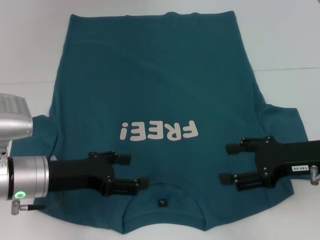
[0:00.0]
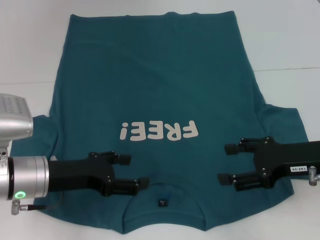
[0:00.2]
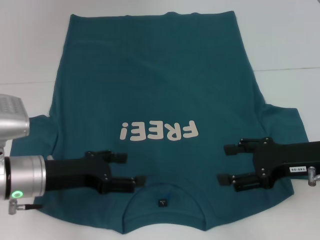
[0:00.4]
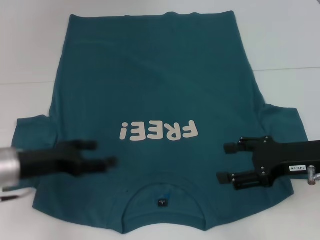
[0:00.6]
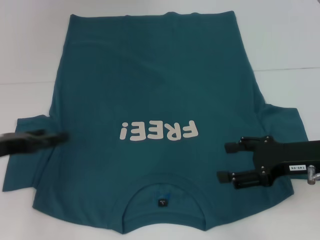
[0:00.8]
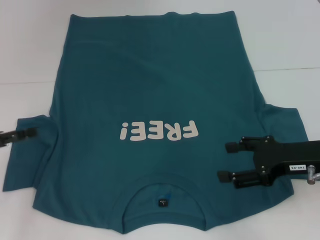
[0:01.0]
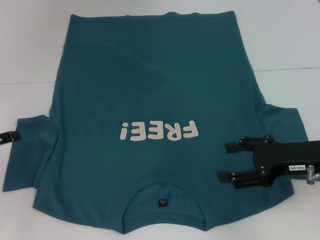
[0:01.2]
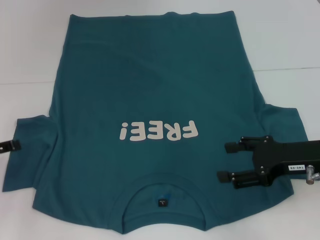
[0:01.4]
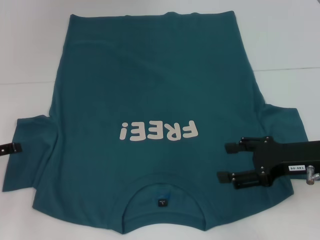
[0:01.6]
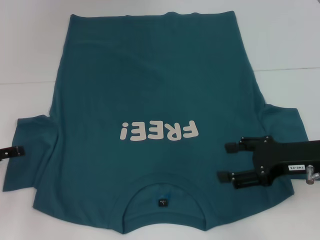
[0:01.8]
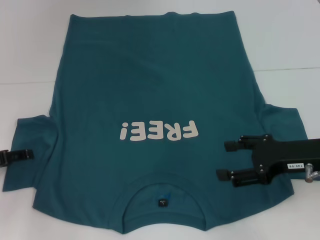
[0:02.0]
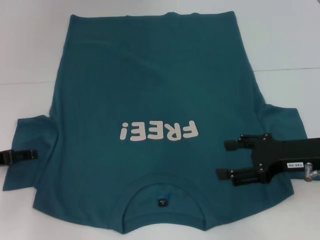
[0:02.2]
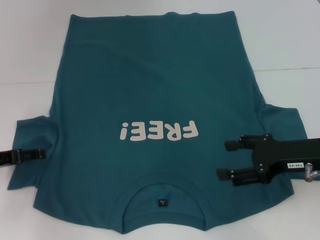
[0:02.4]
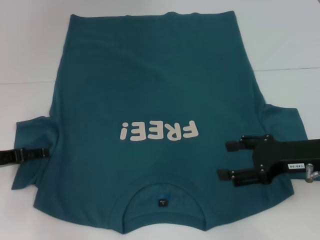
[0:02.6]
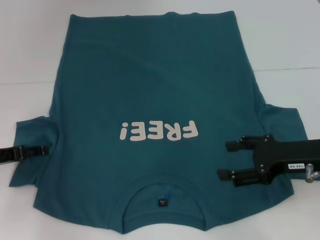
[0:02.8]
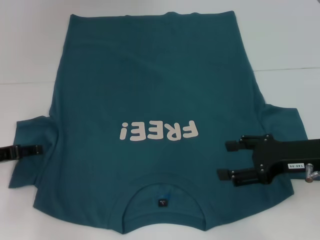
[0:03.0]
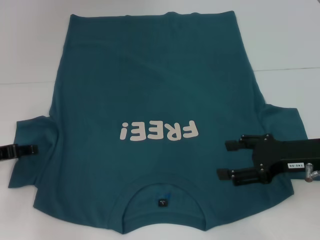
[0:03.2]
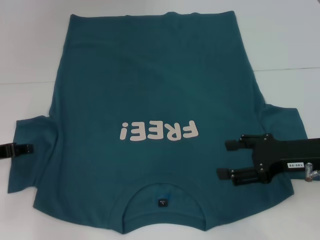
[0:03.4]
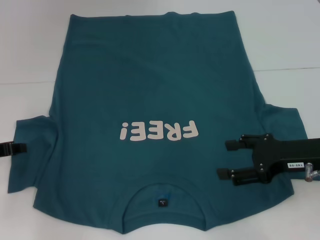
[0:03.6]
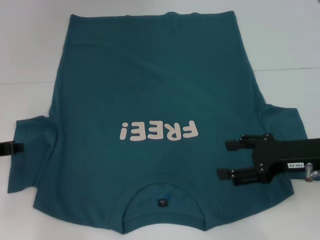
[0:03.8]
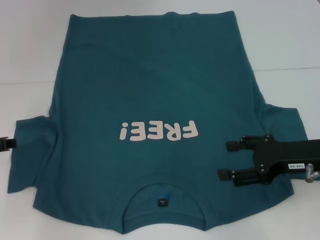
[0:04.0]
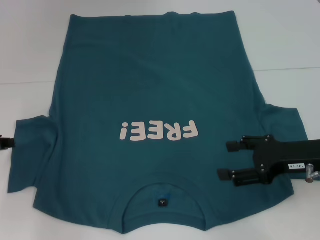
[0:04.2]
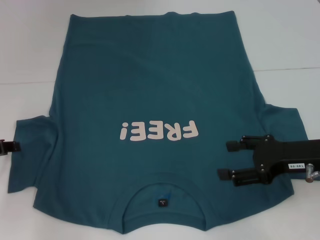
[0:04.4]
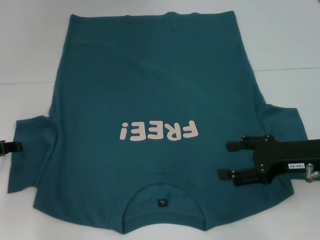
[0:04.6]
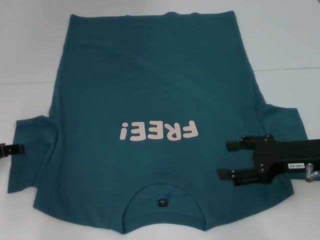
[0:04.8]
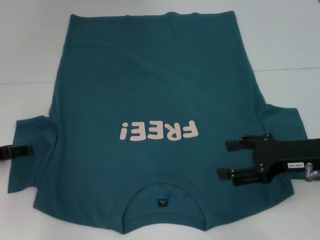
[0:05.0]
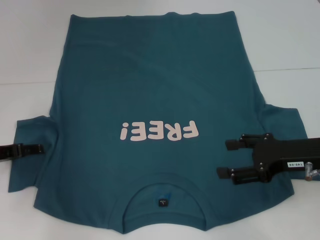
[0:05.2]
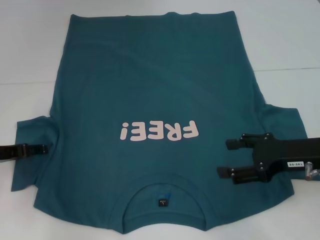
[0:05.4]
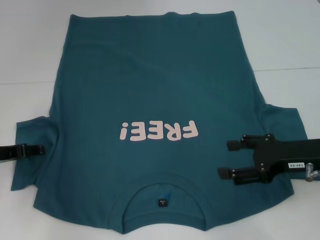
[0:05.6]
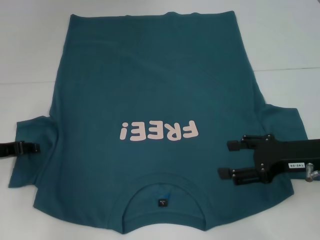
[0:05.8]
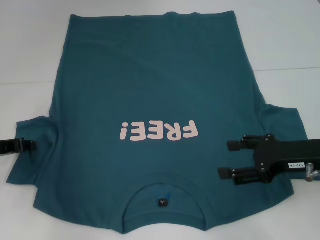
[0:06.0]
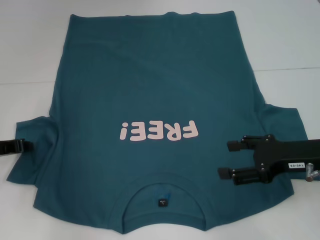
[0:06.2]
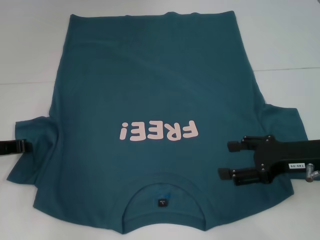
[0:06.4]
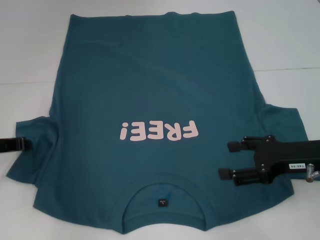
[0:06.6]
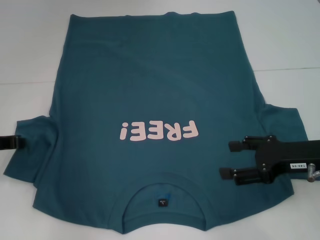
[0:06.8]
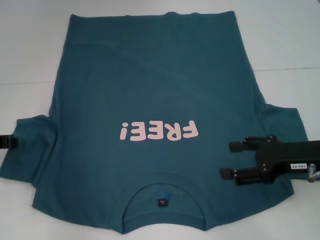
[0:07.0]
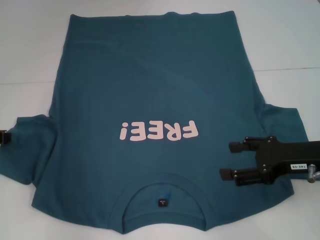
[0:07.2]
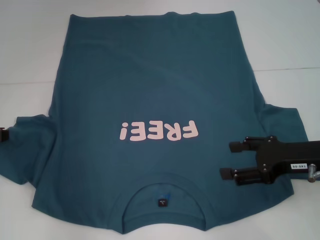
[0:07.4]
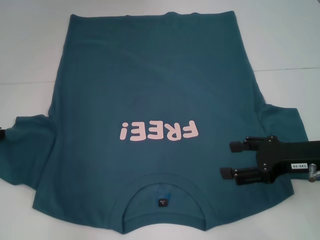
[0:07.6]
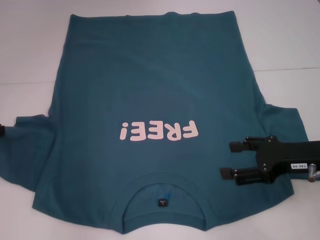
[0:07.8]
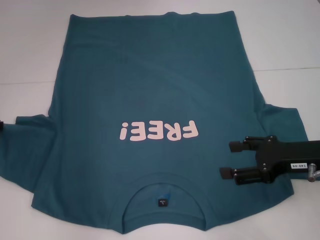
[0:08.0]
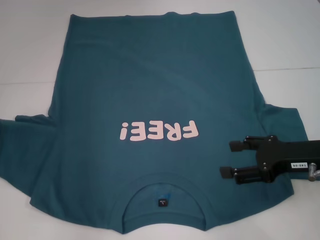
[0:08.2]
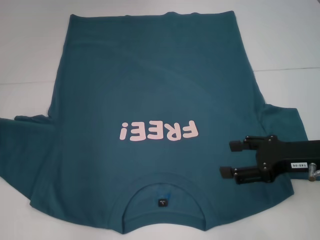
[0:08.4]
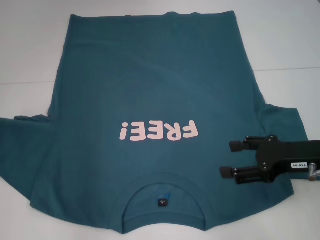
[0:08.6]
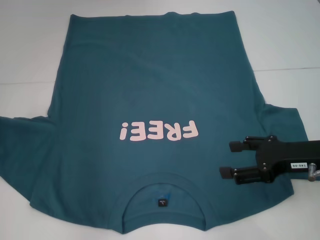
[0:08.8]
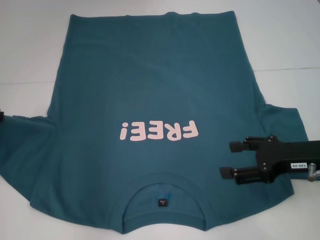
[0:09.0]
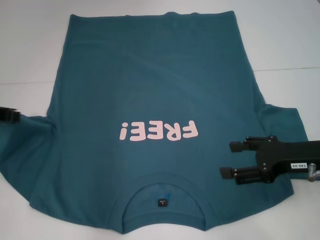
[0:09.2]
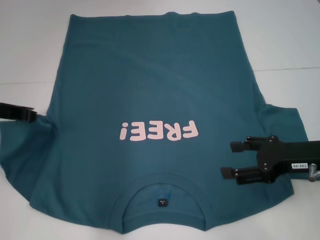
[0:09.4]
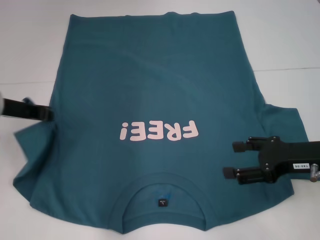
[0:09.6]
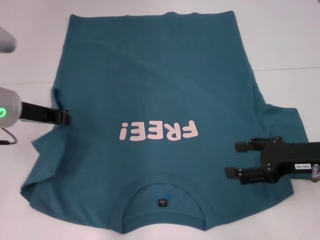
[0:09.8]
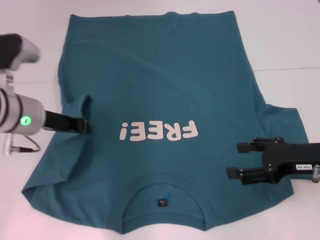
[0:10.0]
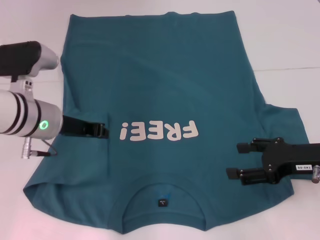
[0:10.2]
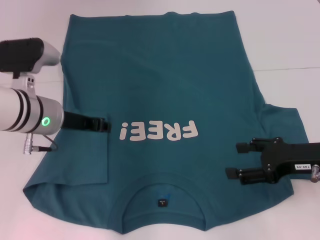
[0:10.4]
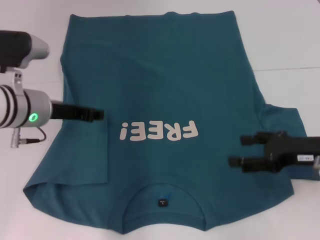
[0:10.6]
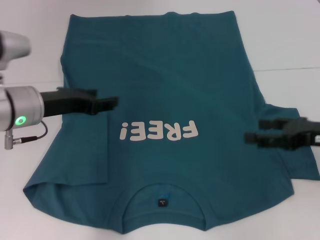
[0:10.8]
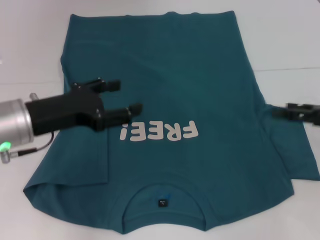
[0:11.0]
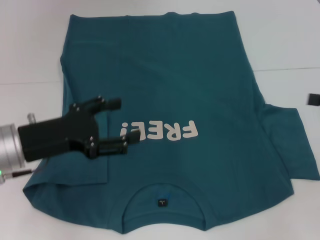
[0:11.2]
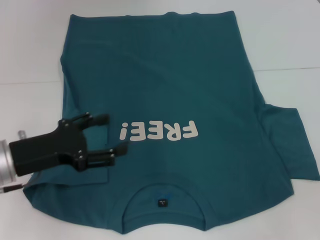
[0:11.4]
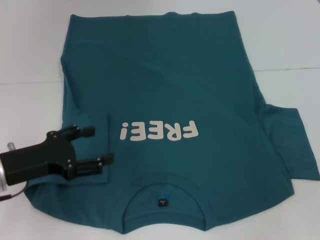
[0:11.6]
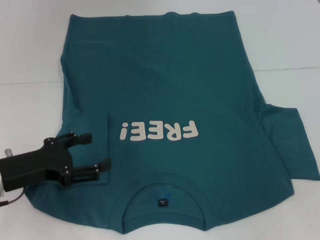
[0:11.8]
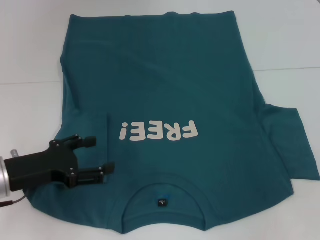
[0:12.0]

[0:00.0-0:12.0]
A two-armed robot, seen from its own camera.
Step, 0:00.0 to 0:10.2: Fold the bottom left sleeve with your left hand.
0:00.0 to 0:01.6: The left gripper shifts approximately 15 cm to the left.
0:01.6 to 0:03.0: The grippers make only small movements.
0:03.0 to 0:04.4: The left gripper closes its fingers.
0:04.4 to 0:06.0: The left gripper opens up.
0:06.0 to 0:07.6: The left gripper closes its fingers.
0:07.6 to 0:09.0: The grippers move only a little.
0:09.0 to 0:10.4: The left gripper heads to the right, covering approximately 15 cm.
0:10.4 to 0:12.0: The left gripper heads backward and to the left, covering approximately 10 cm, and opens up, while the right gripper travels to the right by approximately 15 cm.

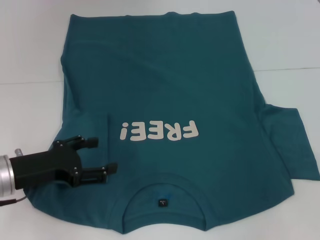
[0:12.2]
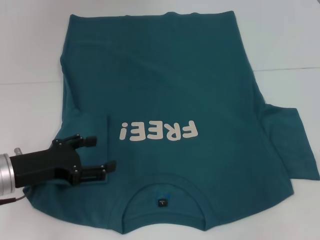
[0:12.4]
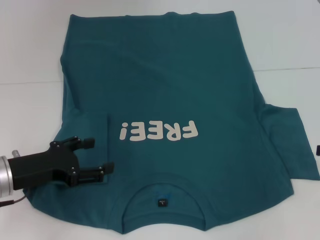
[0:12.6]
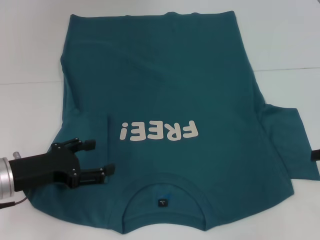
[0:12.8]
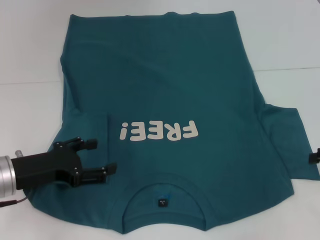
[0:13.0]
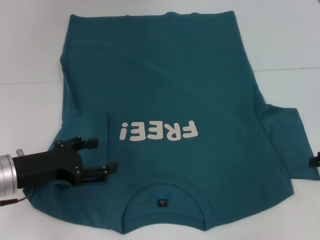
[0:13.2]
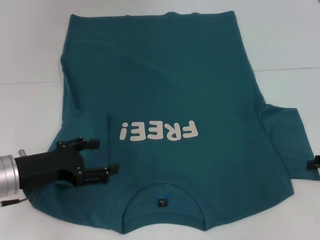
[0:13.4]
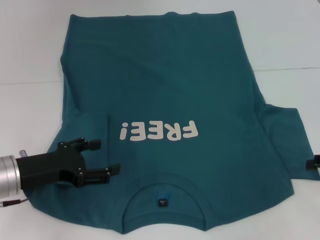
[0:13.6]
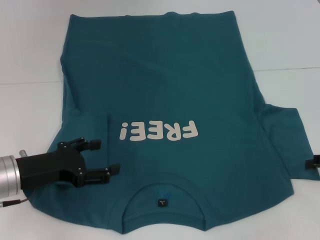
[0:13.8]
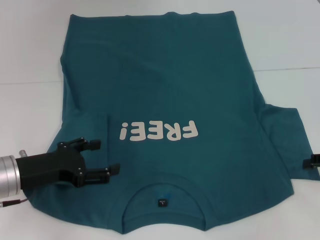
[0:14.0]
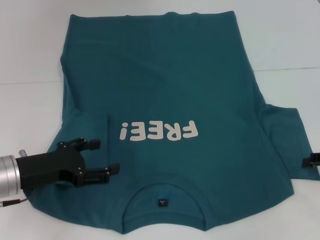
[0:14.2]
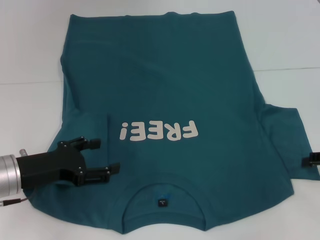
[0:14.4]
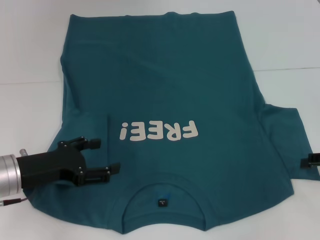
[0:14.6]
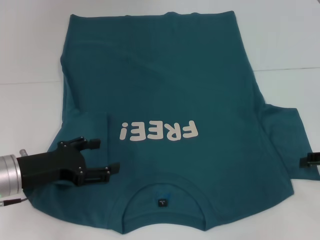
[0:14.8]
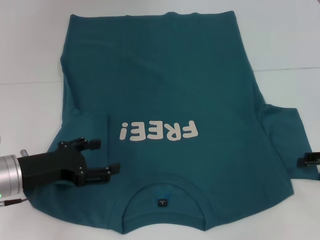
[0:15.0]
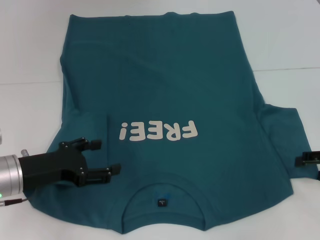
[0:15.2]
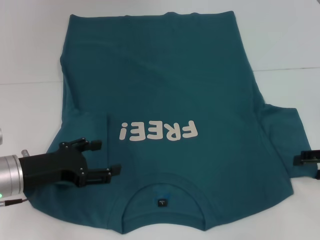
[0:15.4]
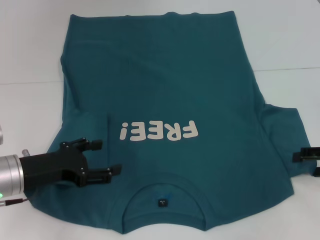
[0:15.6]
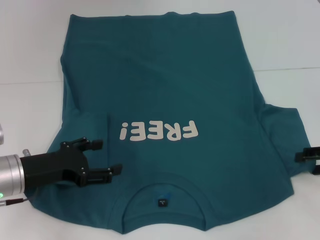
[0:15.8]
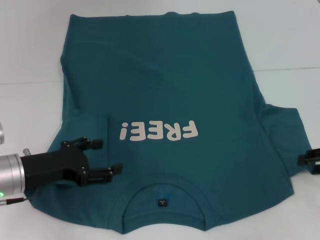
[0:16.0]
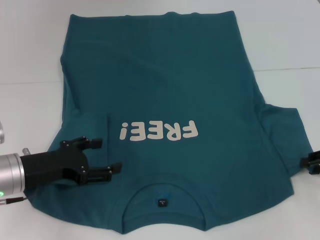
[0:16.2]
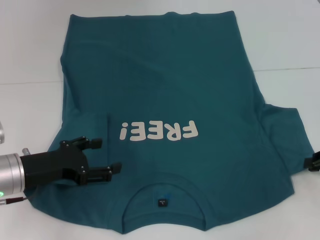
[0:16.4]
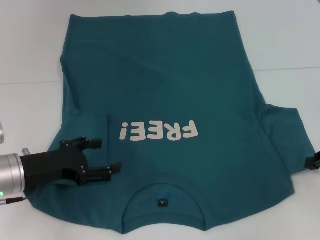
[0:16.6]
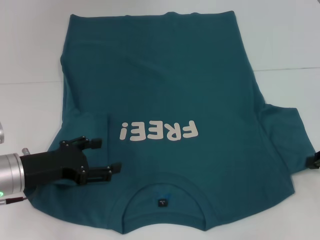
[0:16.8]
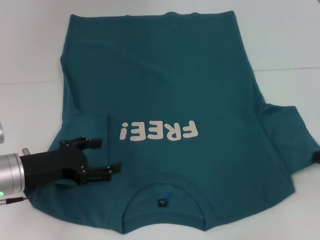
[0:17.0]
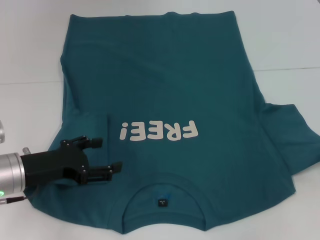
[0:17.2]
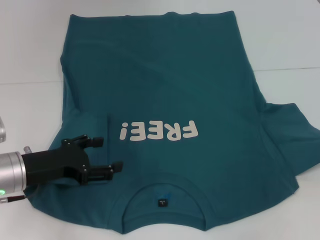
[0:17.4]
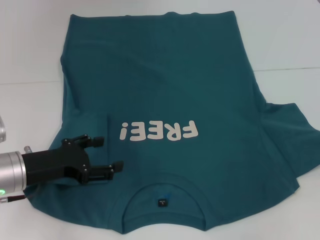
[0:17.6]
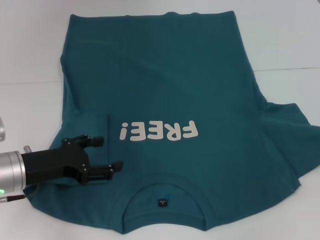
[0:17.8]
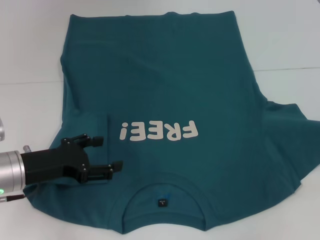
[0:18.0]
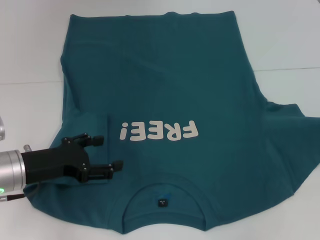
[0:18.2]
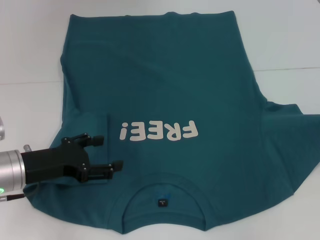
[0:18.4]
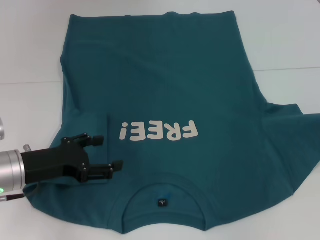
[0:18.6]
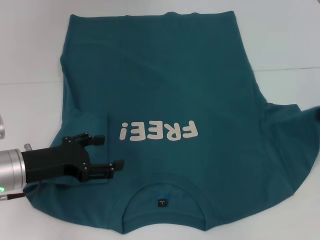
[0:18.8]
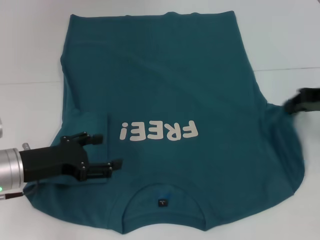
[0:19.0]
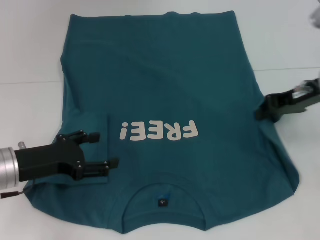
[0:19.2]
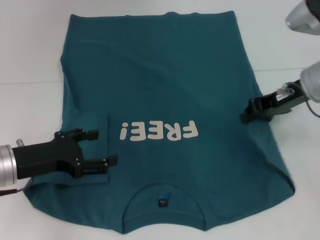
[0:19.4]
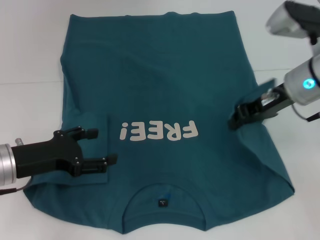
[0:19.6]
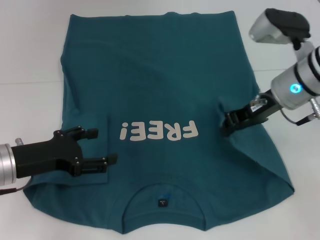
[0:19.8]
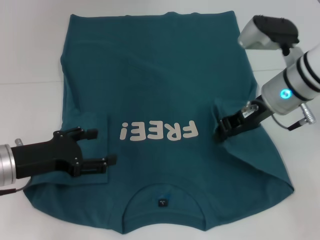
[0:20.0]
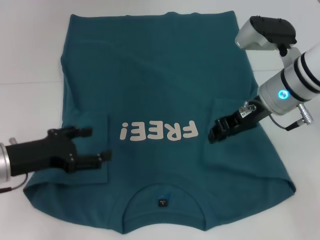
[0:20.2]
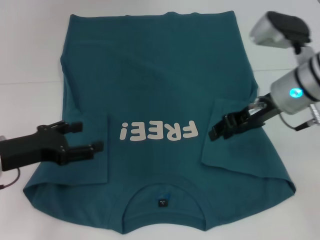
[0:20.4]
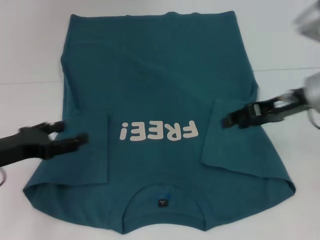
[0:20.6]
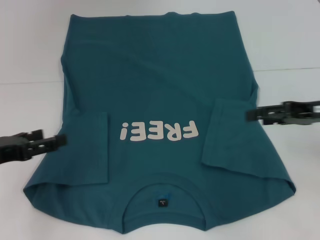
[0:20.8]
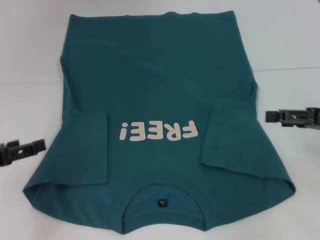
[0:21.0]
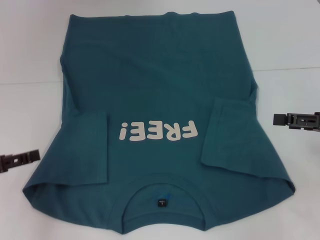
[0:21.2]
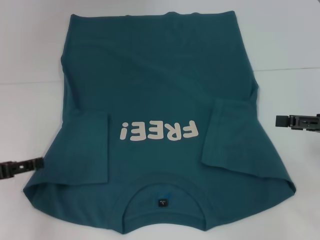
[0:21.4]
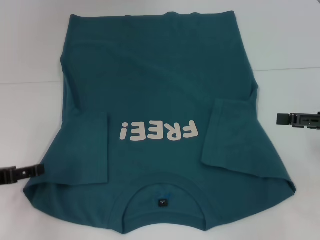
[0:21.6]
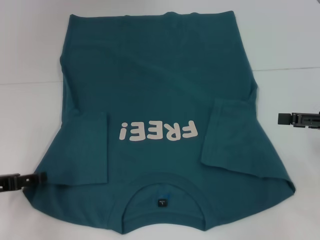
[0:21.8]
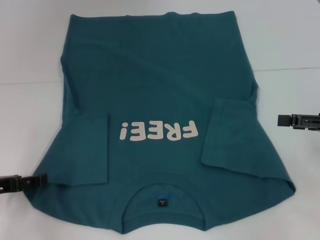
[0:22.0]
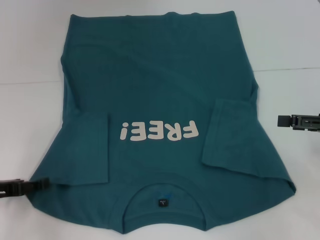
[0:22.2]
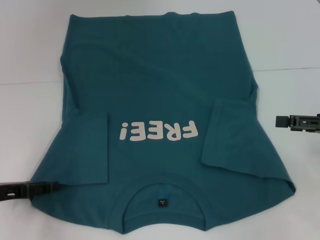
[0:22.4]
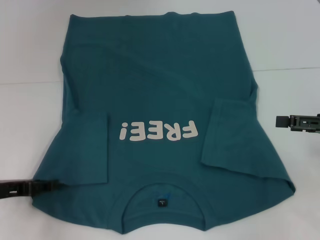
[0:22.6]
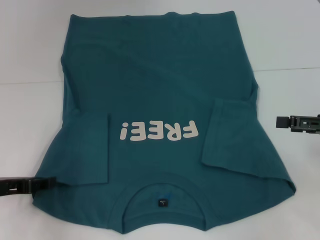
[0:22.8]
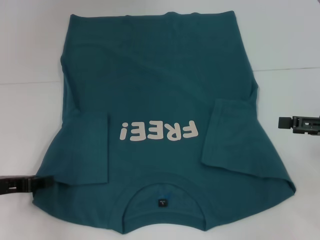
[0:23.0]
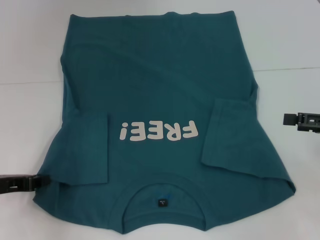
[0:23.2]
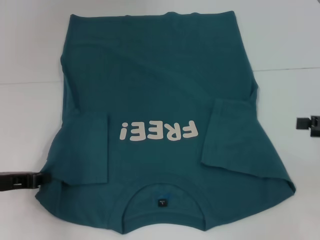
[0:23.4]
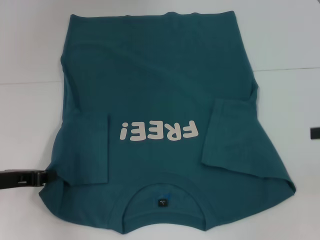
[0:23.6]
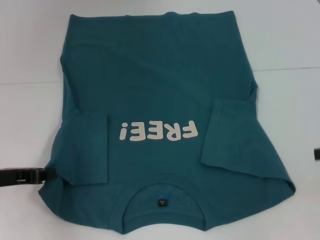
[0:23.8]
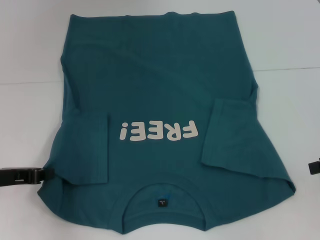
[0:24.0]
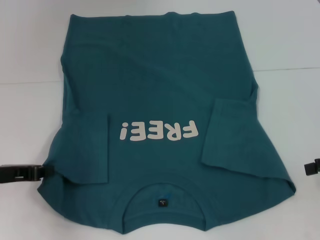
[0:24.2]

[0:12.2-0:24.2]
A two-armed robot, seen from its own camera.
Step, 0:12.2 to 0:20.4: Fold the bottom right sleeve to the right.
Step, 0:20.6 to 0:23.6: Grab the bottom left corner with your left hand.
0:12.2 to 0:15.2: The grippers move only a little.
0:15.2 to 0:16.6: The right gripper closes up.
0:16.6 to 0:18.2: The right gripper ends up approximately 5 cm from where it was.
0:18.2 to 0:19.8: The right gripper heads to the left, covering about 20 cm.
0:19.8 to 0:21.2: The right gripper is displaced to the right and backward by approximately 15 cm, and opens up. Meanwhile the left gripper is displaced to the left by roughly 10 cm.
0:21.2 to 0:22.6: The left gripper ends up roughly 5 cm from where it was.
0:22.6 to 0:24.2: The left gripper closes.
